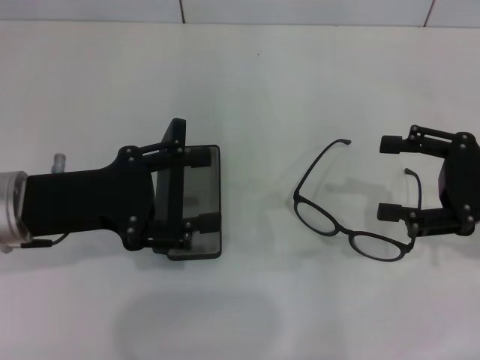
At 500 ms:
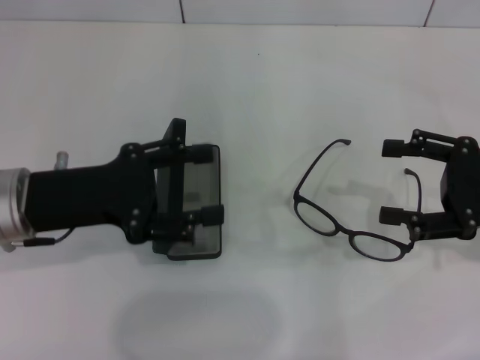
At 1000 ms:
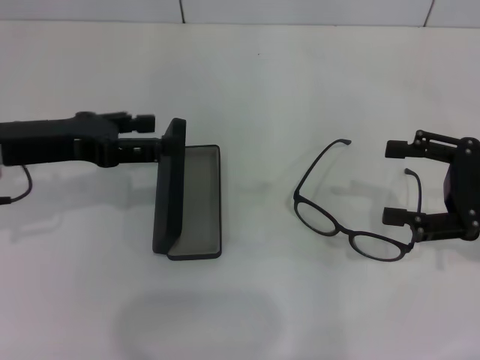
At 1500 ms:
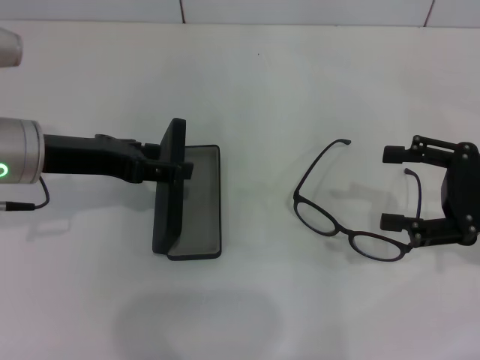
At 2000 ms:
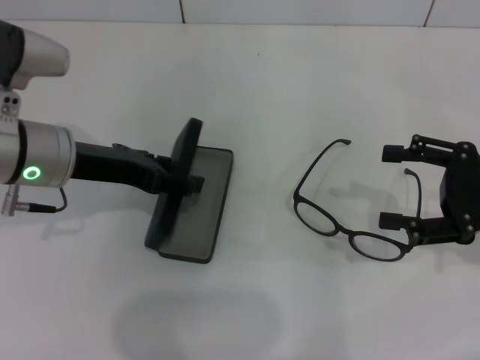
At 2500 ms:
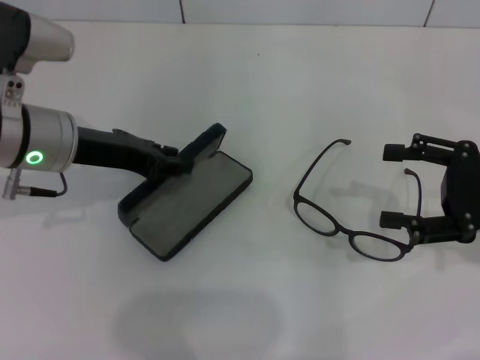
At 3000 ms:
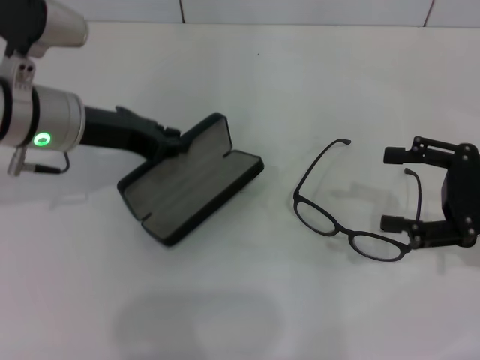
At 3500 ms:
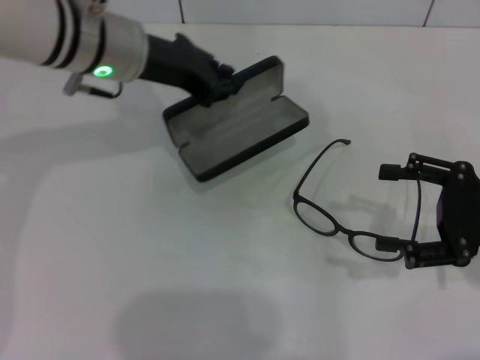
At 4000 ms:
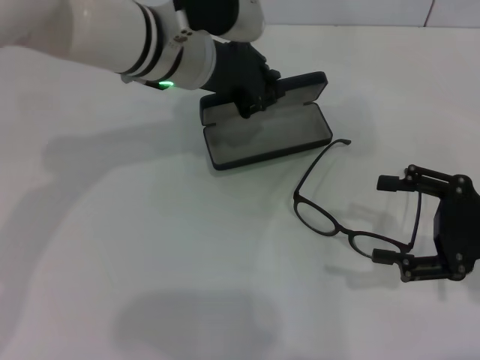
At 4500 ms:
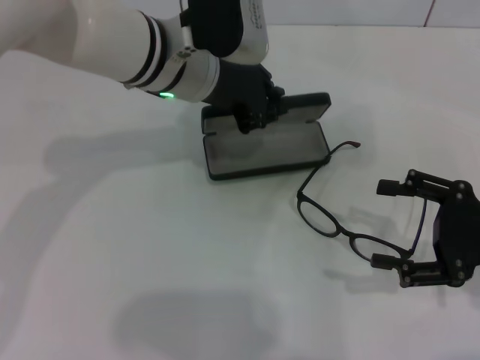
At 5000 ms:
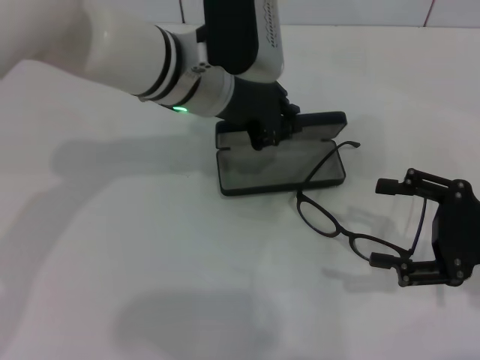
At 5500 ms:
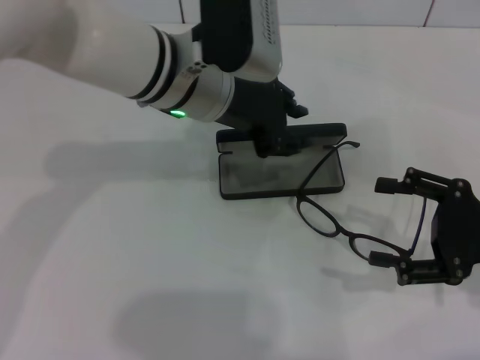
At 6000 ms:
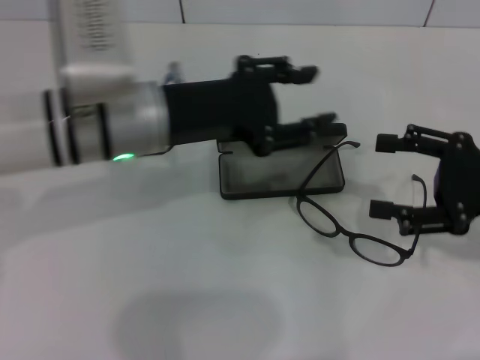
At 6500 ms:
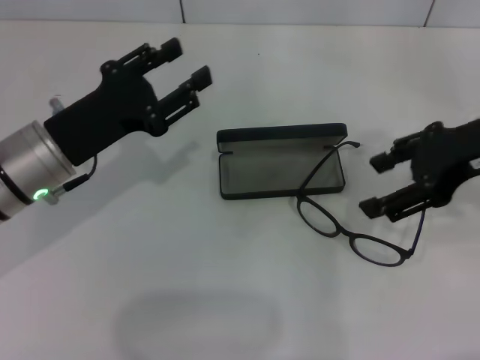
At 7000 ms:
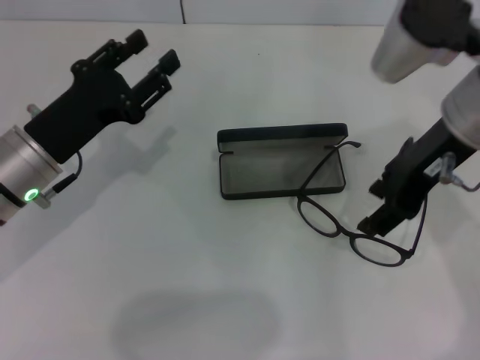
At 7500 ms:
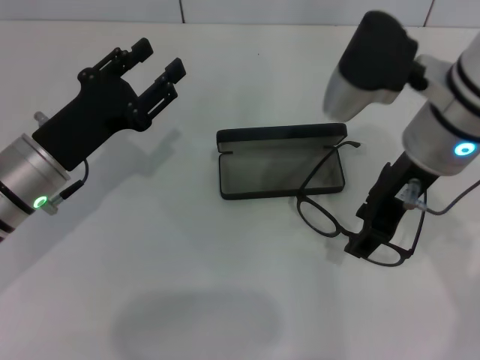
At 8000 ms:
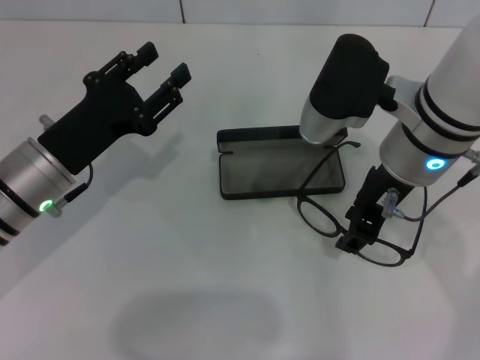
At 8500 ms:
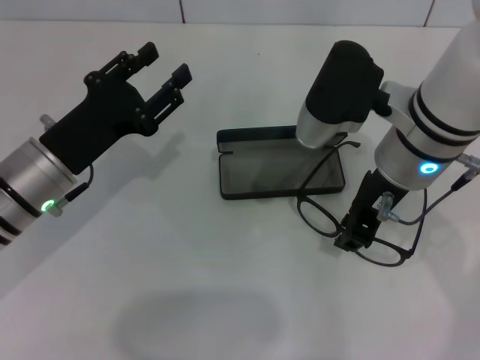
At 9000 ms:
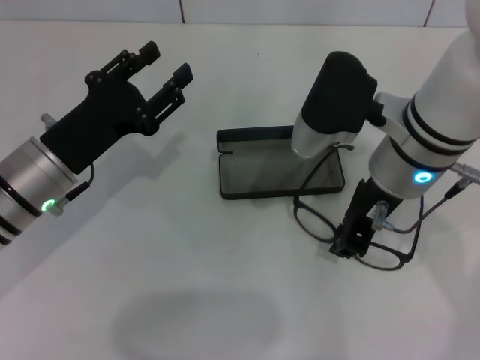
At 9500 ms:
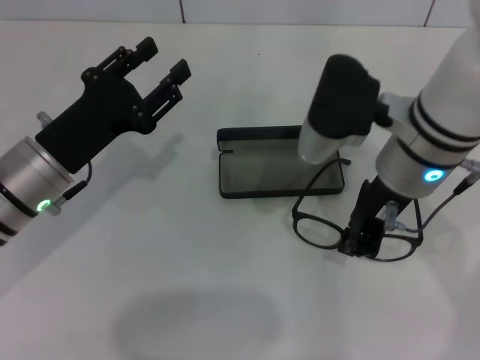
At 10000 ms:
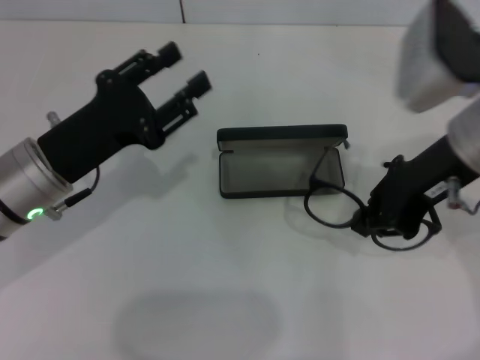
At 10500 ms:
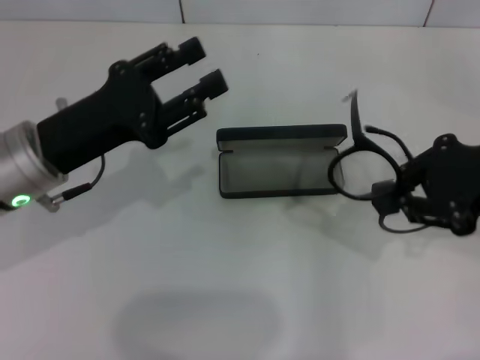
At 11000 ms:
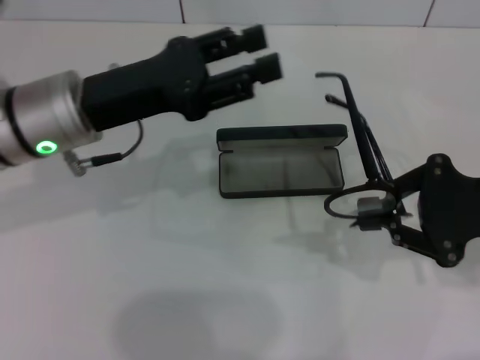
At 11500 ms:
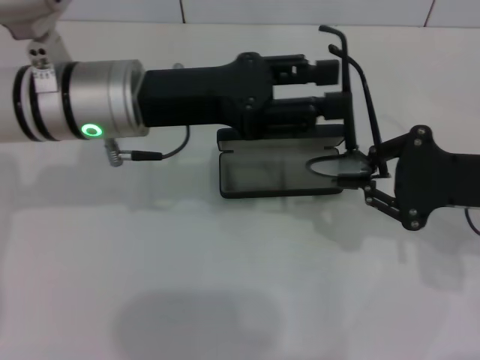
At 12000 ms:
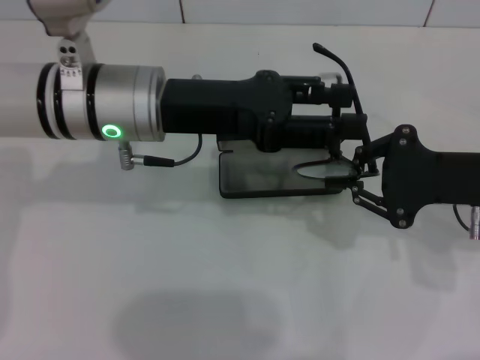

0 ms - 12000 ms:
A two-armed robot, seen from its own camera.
Step, 0 ms - 2000 ms: Grab the glasses case with your left hand.
Step, 2500 ms - 5000 ms: Place the glasses case in the center of the table with your left hand.
Step, 5500 ms - 9000 ms: Grab the eyeglass frame with your right hand.
0 ms - 2000 ms: The left gripper travels forward by about 5 cm.
2000 ms - 4000 ms: The left gripper shifts roughly 15 cm to the right and forward, and closes up.
4000 ms - 6000 ms: The left gripper shifts some 10 cm backward and to the left, and opens.
6000 ms - 8000 ms: The right gripper travels to the left by approximately 15 cm, and closes; the left gripper moves to the left and downward, roughly 10 cm.
8000 ms - 10000 ms: The right gripper shifts roughly 5 cm to the right, and closes its fingers.
10000 ms - 12000 ms: The right gripper moves downward and to the right, approximately 10 cm, while the left gripper shifts approximately 15 cm to the right, upward and forward.

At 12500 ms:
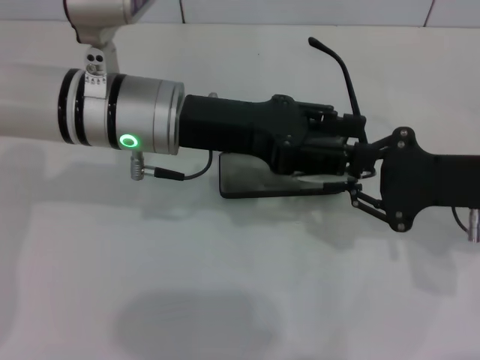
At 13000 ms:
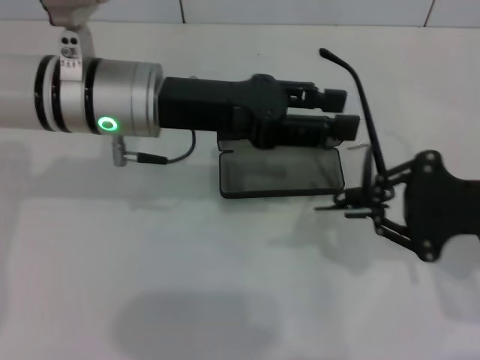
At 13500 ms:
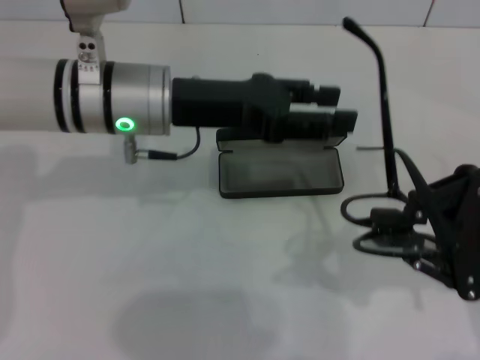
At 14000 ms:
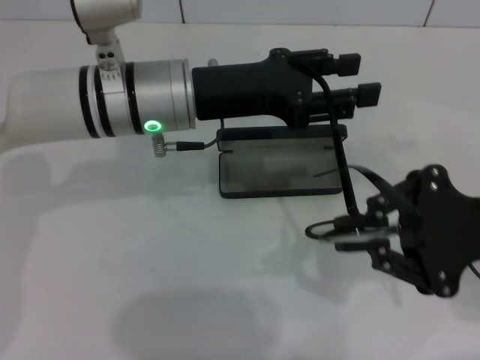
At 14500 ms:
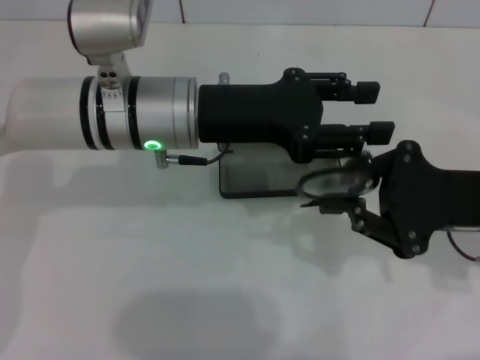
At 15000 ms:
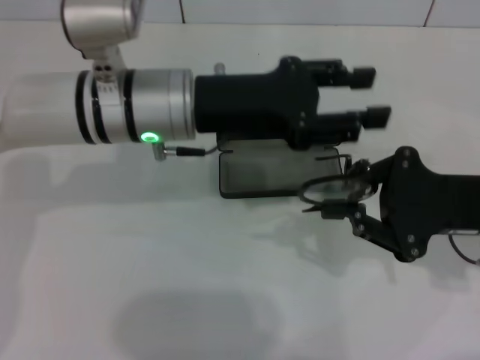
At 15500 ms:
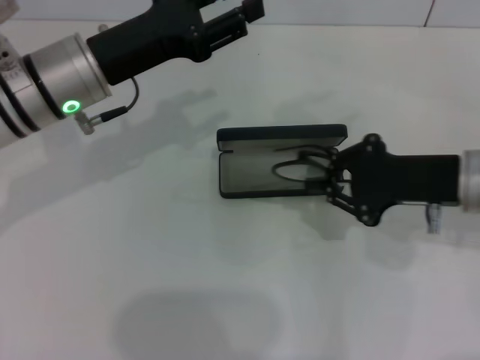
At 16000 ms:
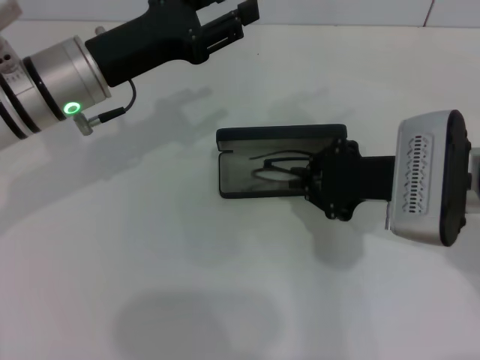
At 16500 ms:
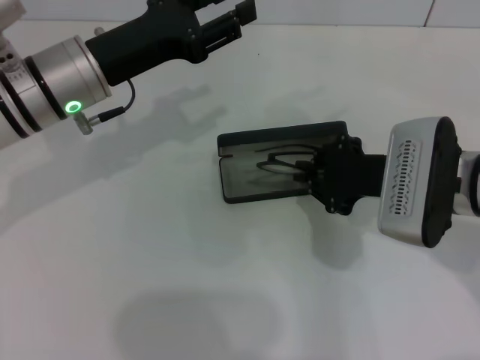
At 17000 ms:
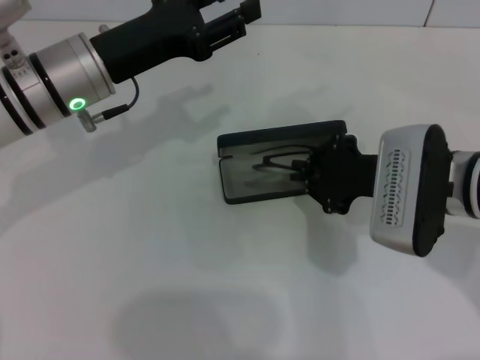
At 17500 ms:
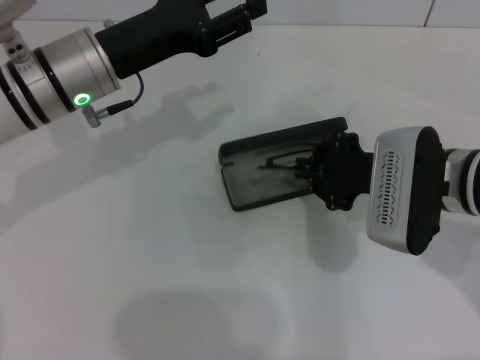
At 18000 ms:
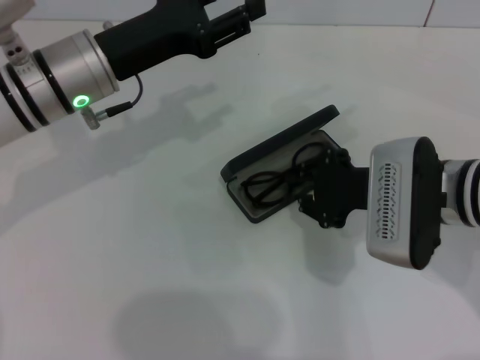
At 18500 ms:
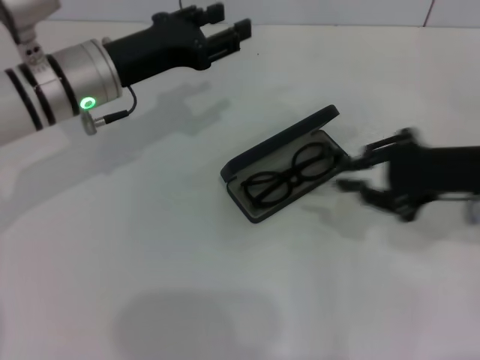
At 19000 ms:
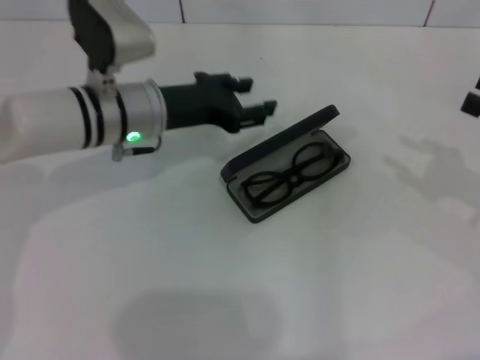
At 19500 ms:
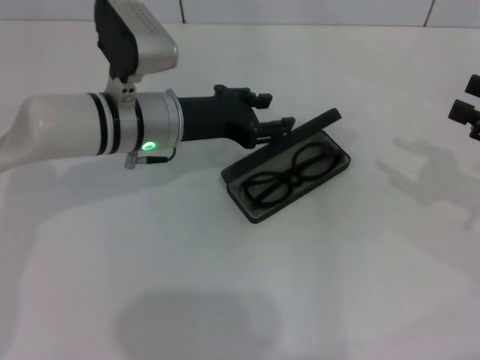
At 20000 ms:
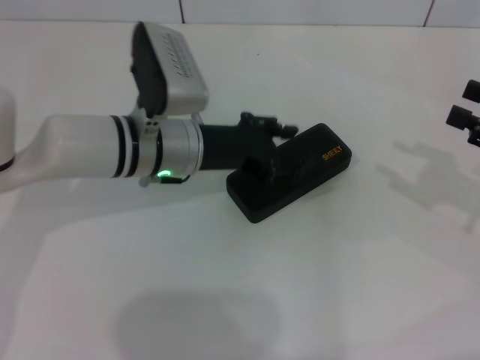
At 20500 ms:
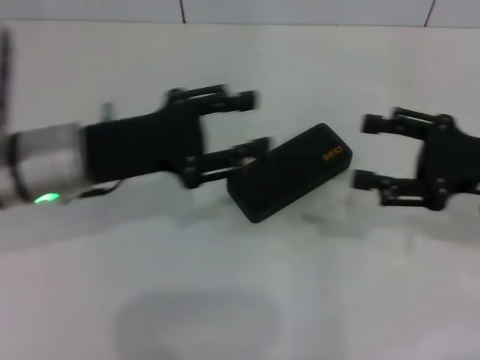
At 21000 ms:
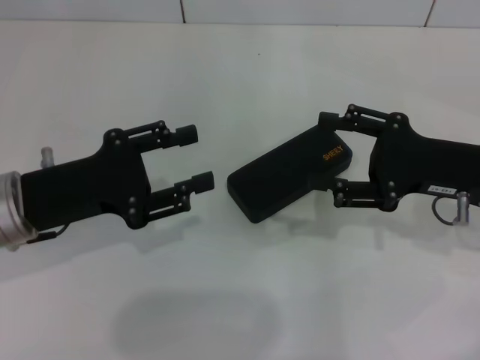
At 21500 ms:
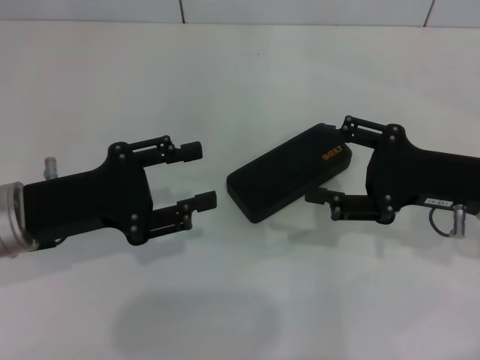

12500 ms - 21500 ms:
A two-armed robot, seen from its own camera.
Step, 12500 ms - 14500 ms: Fold the frame with your left hand.
Step, 15000 ms - 18000 ms: Put the glasses into the case with your right hand.
Step, 18500 ms - 19500 ms: Close the glasses case with your left hand.
14500 ms - 17000 ms: Both grippers travel together to the left, roughly 10 cm.
17000 ms - 19500 ms: The left gripper shifts some 5 cm to the right; the right gripper moves to the right, about 20 cm, and opens.
19500 ms - 21500 ms: The left gripper heads to the left and backward, covering approximately 15 cm. The right gripper shifts about 10 cm to the left.

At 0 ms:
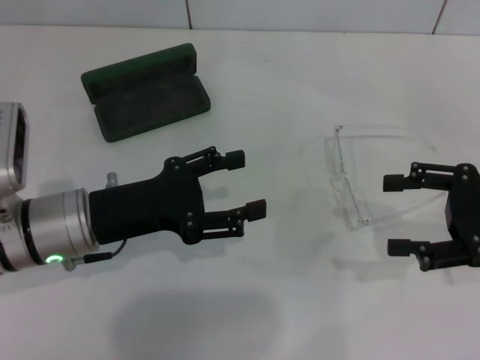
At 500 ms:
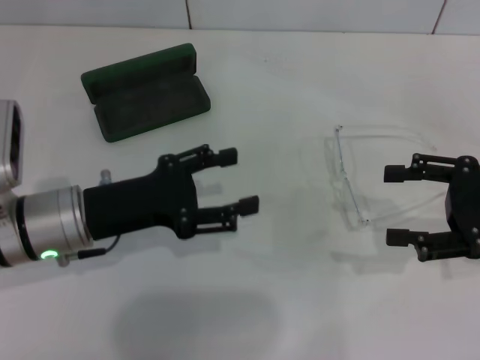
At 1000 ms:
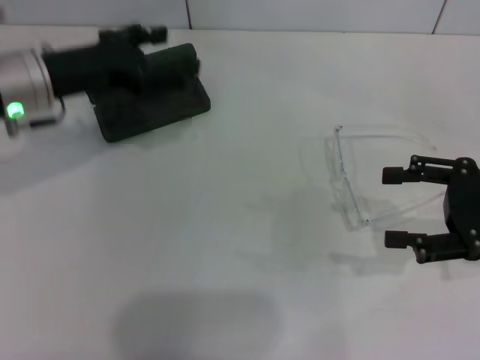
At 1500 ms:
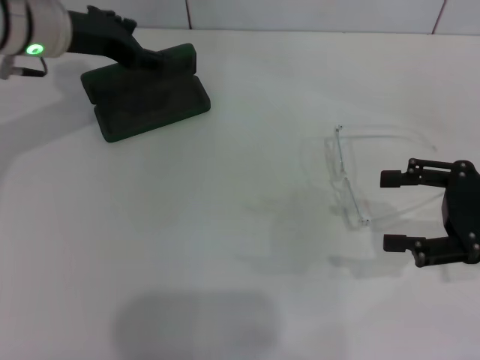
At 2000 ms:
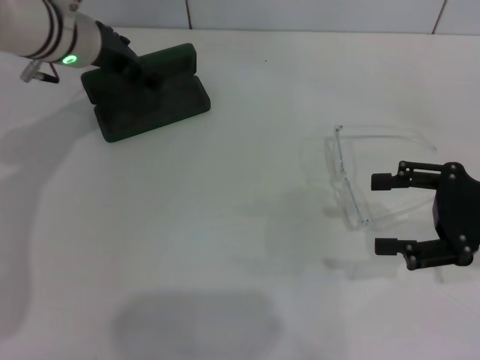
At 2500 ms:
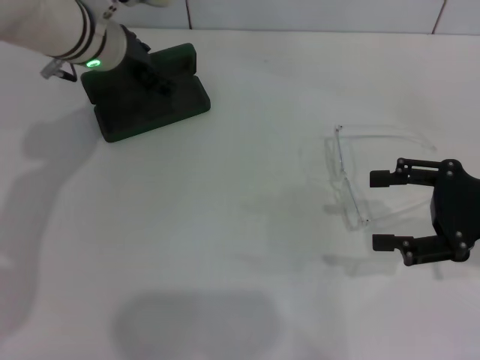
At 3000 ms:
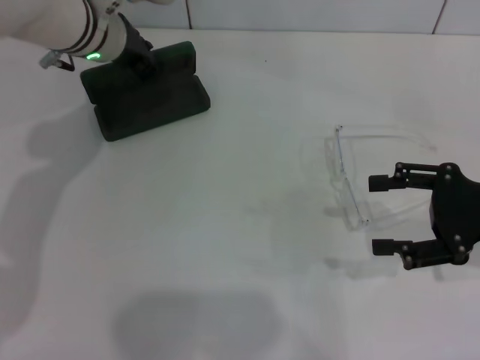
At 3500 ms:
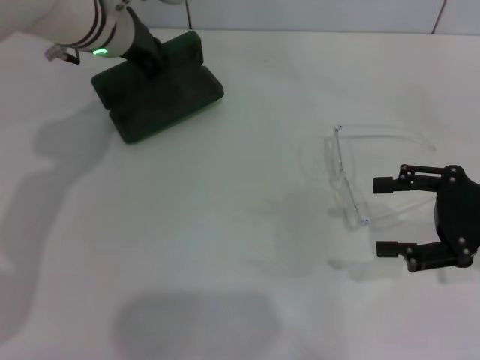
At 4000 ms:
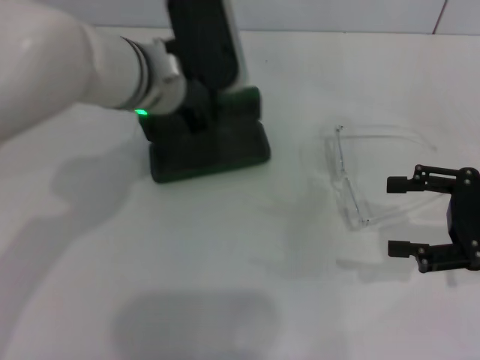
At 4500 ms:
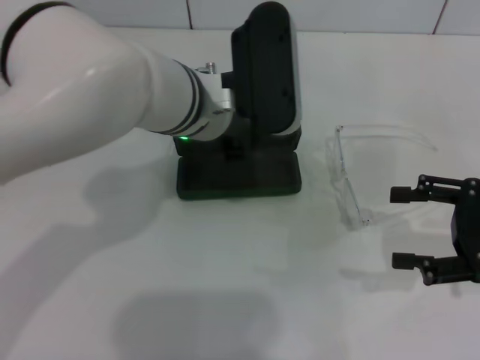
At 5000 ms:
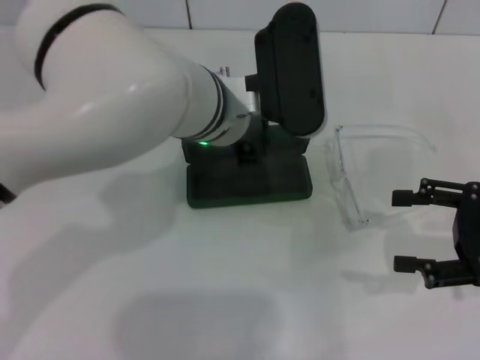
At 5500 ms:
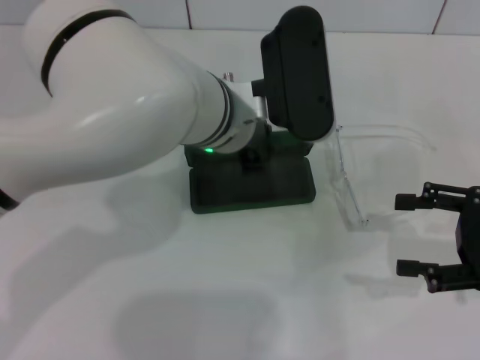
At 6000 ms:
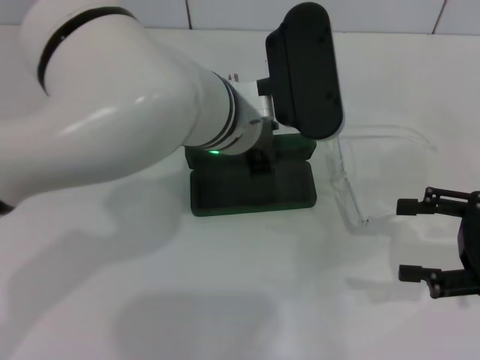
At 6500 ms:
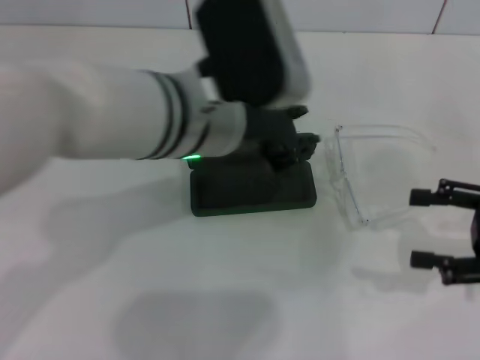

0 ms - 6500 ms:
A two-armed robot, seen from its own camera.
Step, 0 ms - 3000 ms: Grab the glasses case with your left hand.
Step, 3500 ms - 5500 ms: Place the glasses case in the center of the table with your left hand.
0 ms - 2000 ms: The left gripper moves forward and upward, some 20 cm.
2000 ms - 4500 ms: The left gripper goes some 15 cm to the right and backward, and closes.
4500 ms - 6500 ms: The left gripper changes place by some 5 cm.
